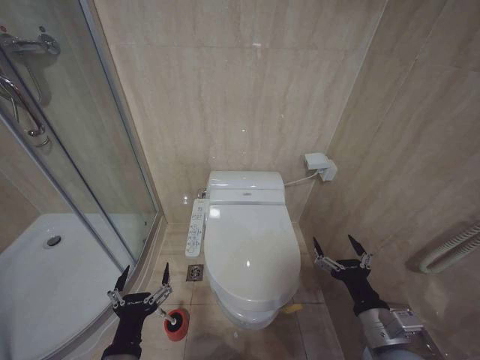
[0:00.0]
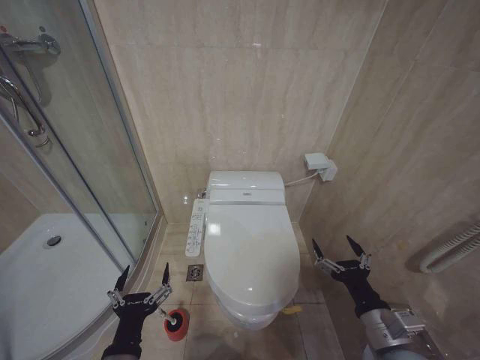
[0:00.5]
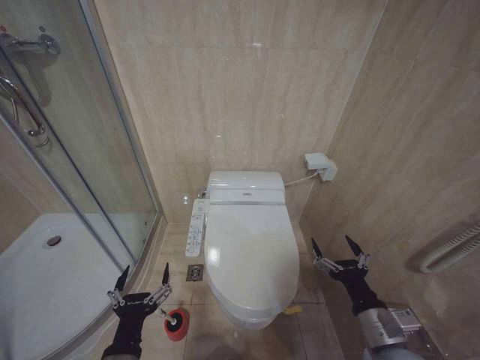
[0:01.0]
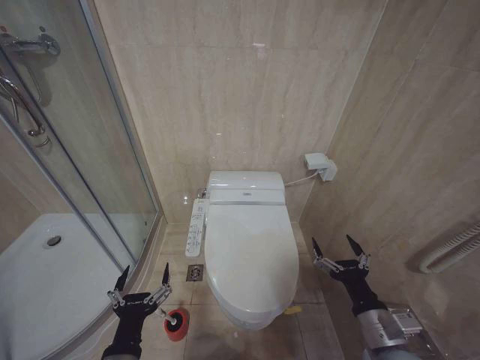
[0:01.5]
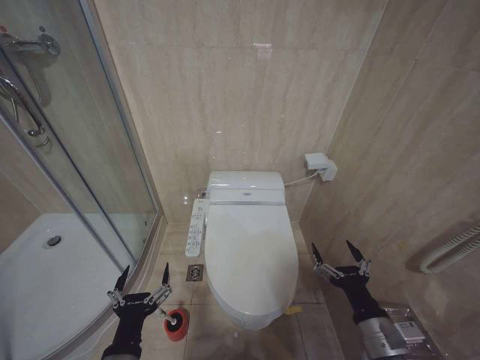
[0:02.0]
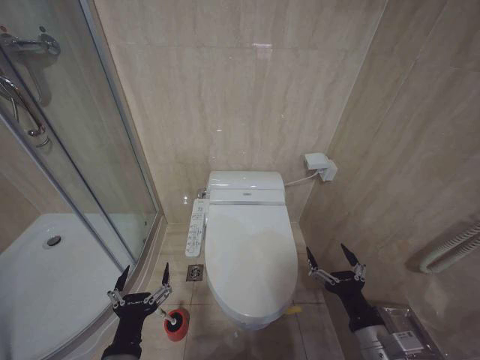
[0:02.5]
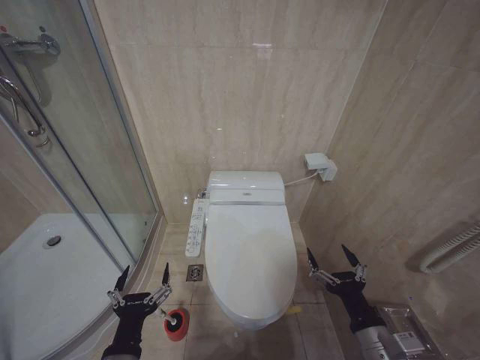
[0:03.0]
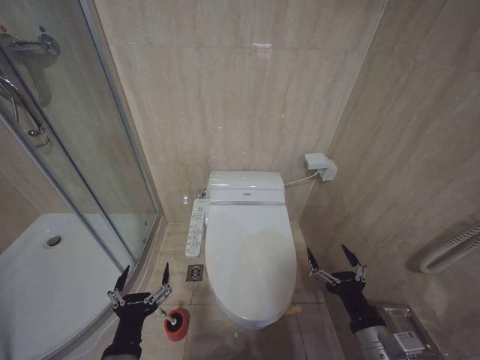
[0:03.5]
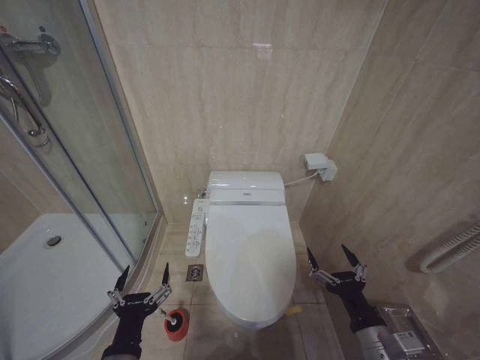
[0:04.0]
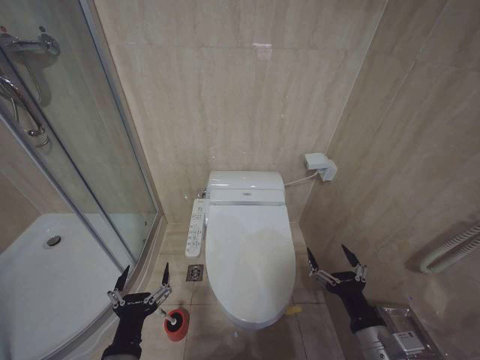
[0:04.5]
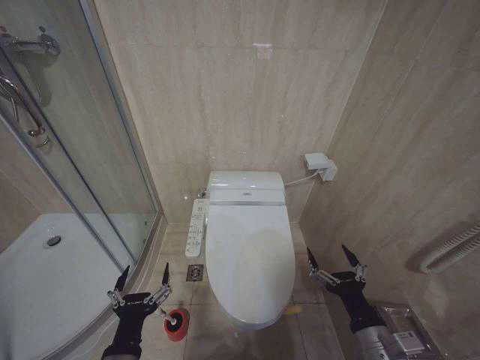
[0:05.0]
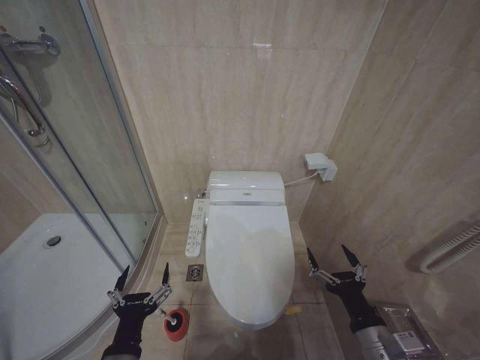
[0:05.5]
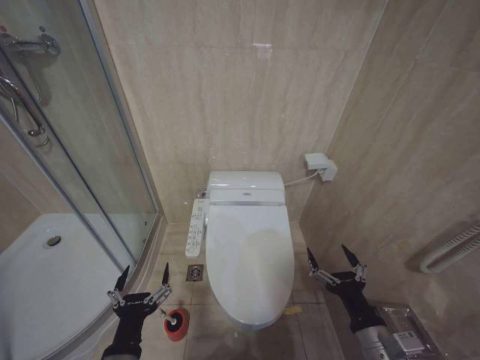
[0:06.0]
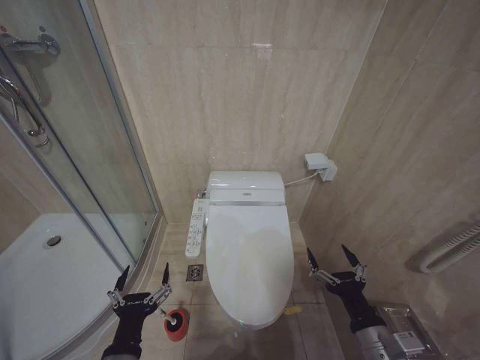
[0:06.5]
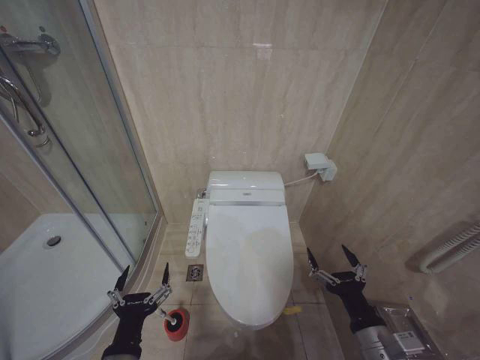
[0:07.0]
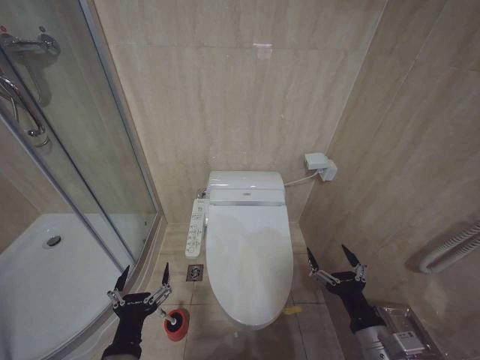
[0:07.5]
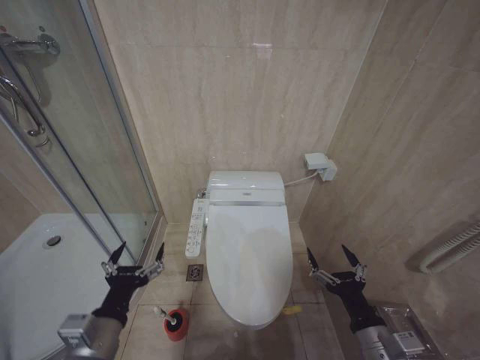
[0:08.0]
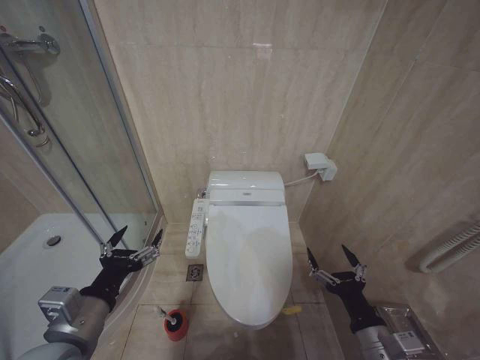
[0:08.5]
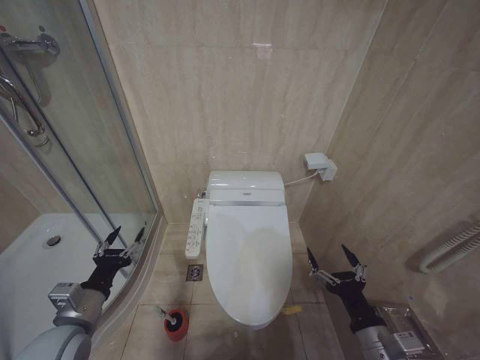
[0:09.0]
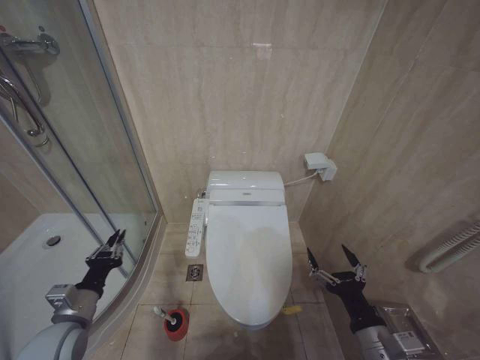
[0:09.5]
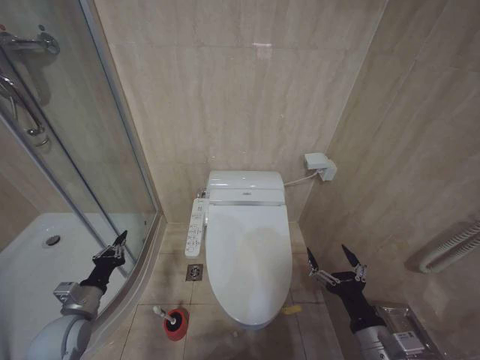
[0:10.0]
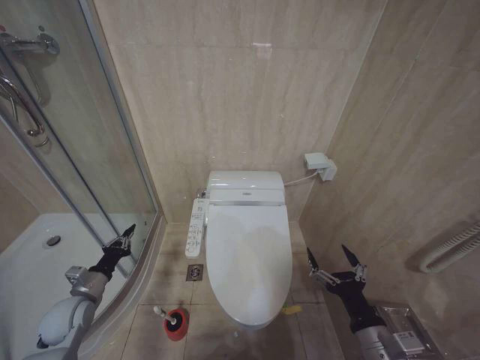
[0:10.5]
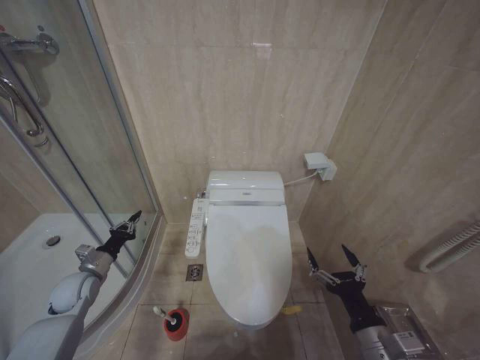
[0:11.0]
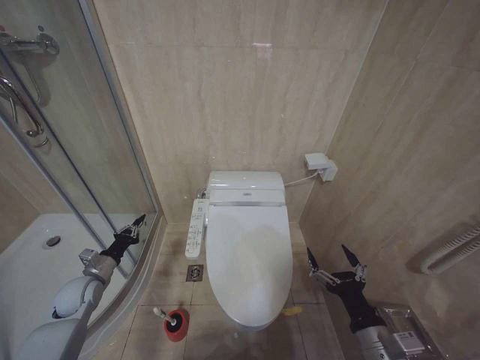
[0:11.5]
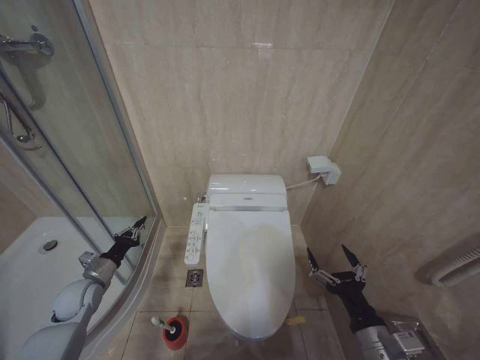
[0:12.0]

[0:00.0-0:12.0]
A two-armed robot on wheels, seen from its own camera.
Task of the whole recording: Open the toilet lid, clean the toilet bowl with a toilet brush, close the toilet lid, and flush.
0:00.0 to 0:04.0: There are only small adjustments of the grippers.
0:04.0 to 0:06.0: The two grippers keep their place.
0:06.0 to 0:08.0: The left gripper shifts some 5 cm upward.
0:08.0 to 0:10.0: The left gripper is displaced to the left, forward and downward by about 20 cm, and closes its fingers.
0:10.0 to 0:12.0: The left gripper goes about 10 cm forward.

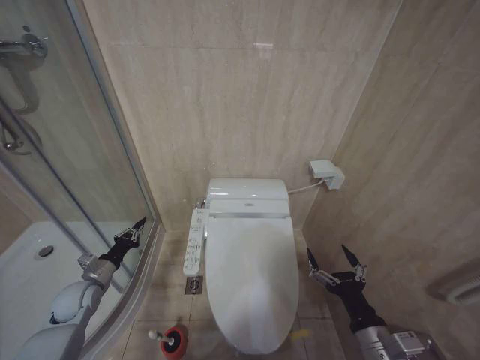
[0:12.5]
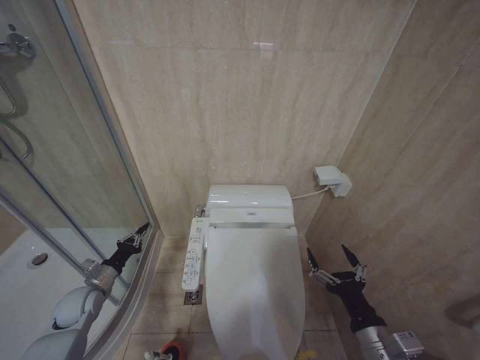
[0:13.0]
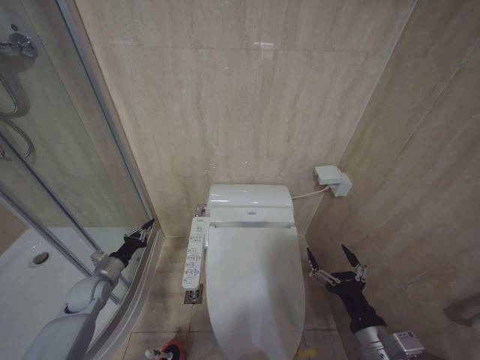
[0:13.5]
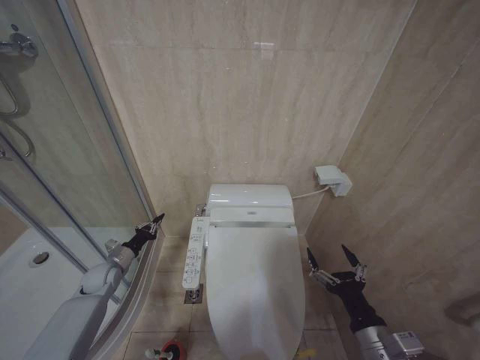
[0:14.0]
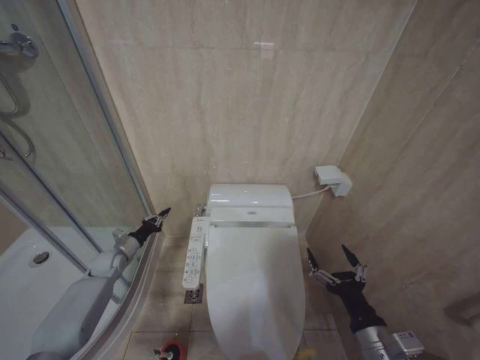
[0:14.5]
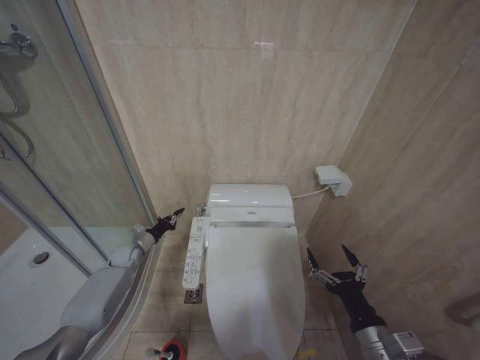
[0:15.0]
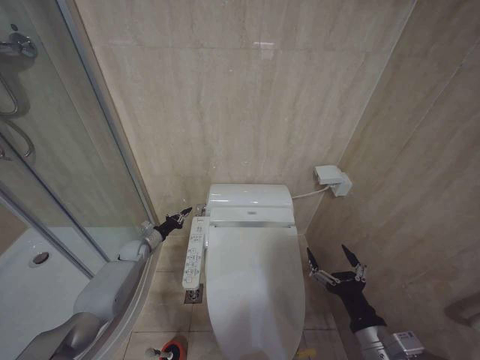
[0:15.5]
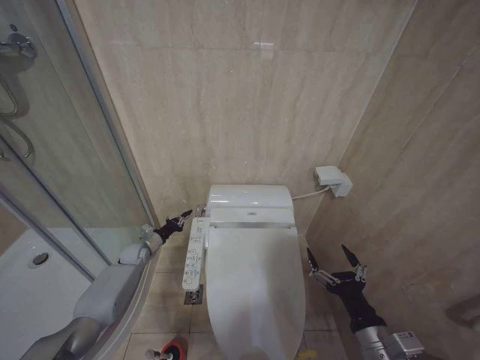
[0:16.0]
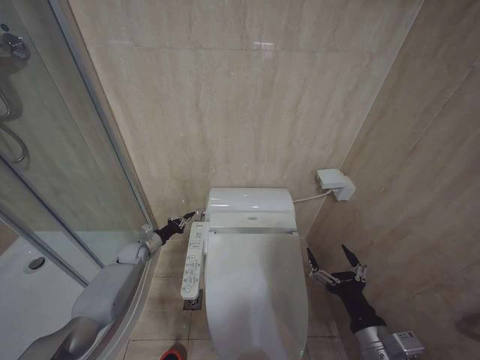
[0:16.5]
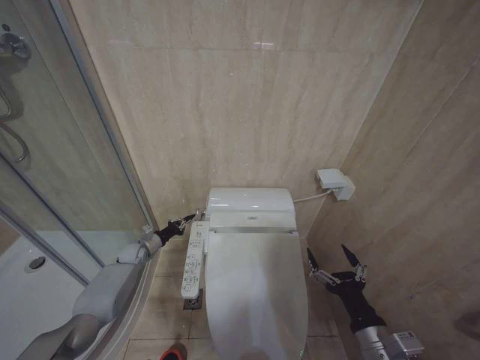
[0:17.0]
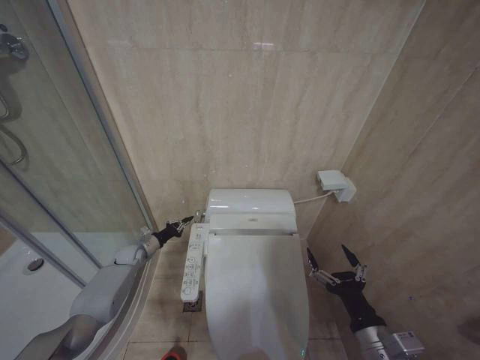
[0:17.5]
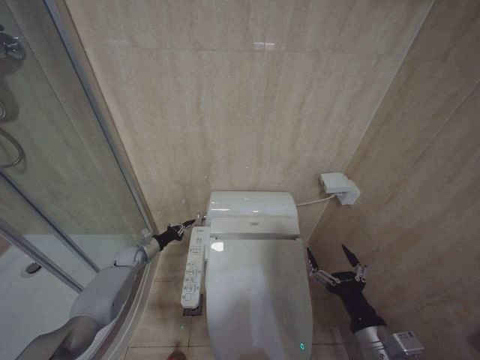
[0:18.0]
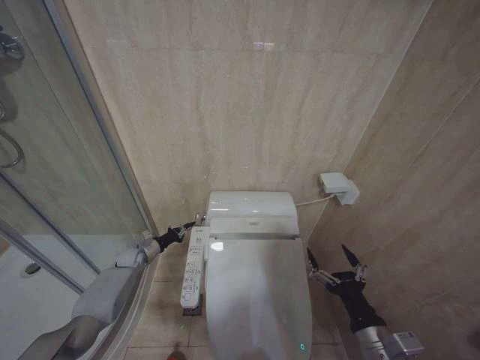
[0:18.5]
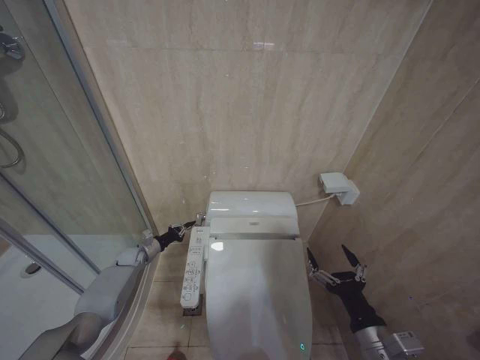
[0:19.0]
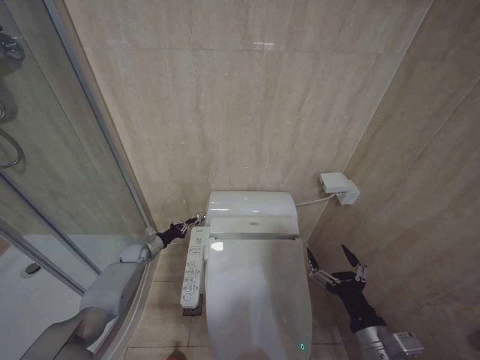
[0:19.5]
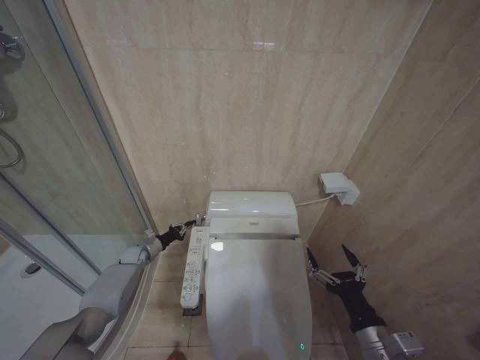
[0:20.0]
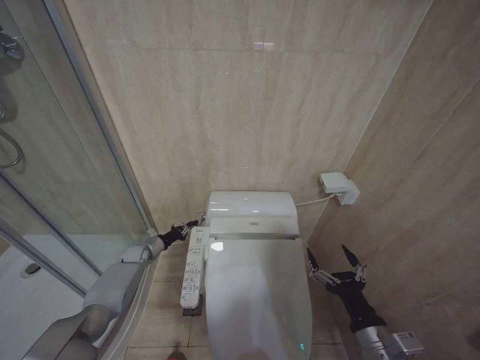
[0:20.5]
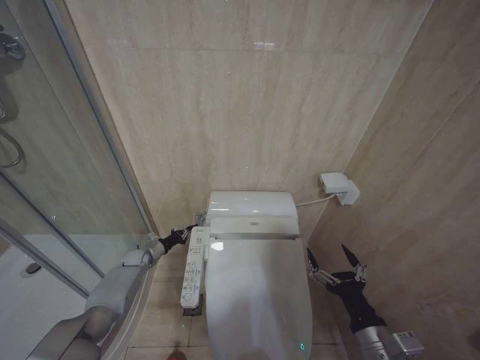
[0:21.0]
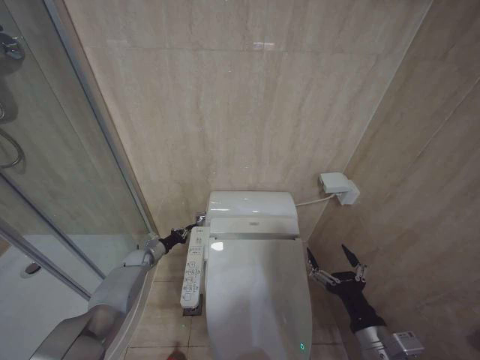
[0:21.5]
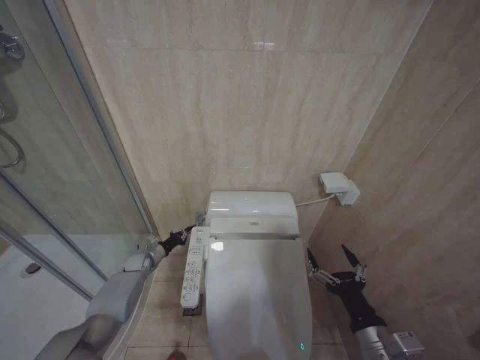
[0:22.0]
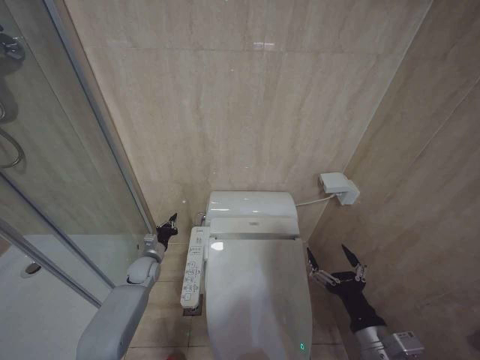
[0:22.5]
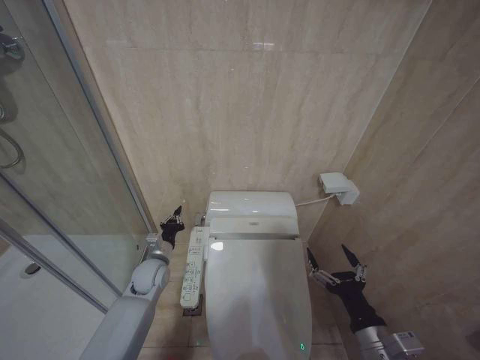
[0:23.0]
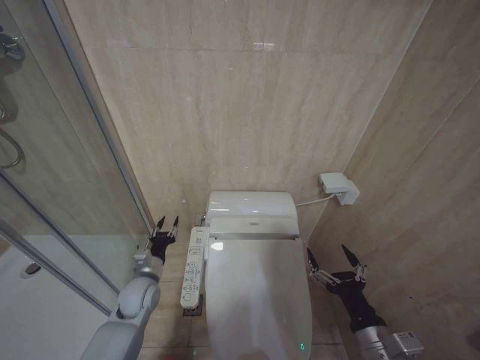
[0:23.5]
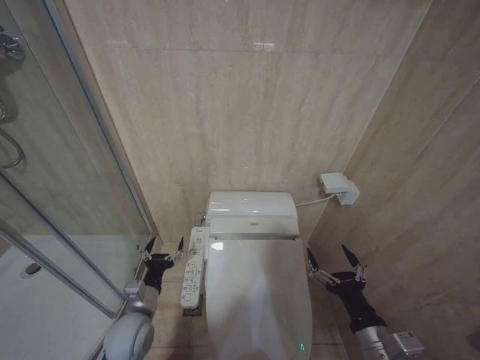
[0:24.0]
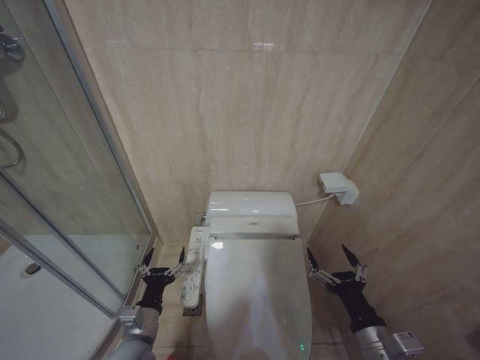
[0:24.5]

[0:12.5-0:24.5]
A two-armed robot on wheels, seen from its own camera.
Task of the whole recording: Open the toilet lid, clean the toilet bowl with a toilet brush, close the toilet lid, and flush.
0:12.5 to 0:14.5: The left gripper moves forward, roughly 10 cm.
0:14.5 to 0:16.5: The left gripper goes approximately 10 cm to the right and forward.
0:16.5 to 0:20.5: The grippers move only a little.
0:20.5 to 0:22.5: The left gripper moves backward and to the right, roughly 10 cm.
0:22.5 to 0:24.5: The left gripper is displaced backward by roughly 25 cm, and opens its fingers.

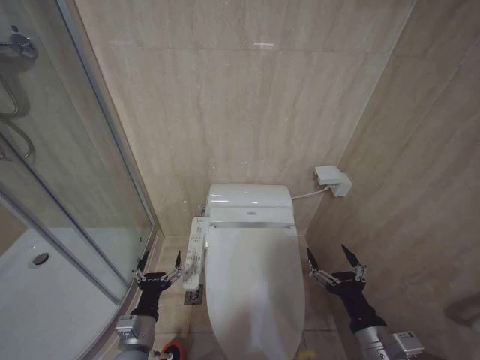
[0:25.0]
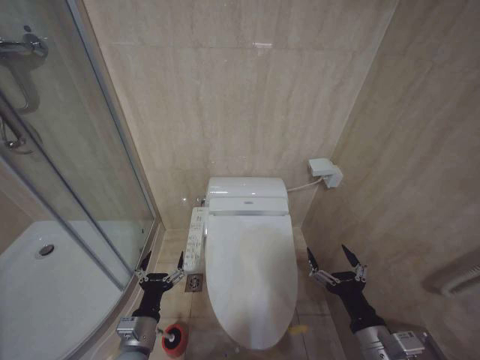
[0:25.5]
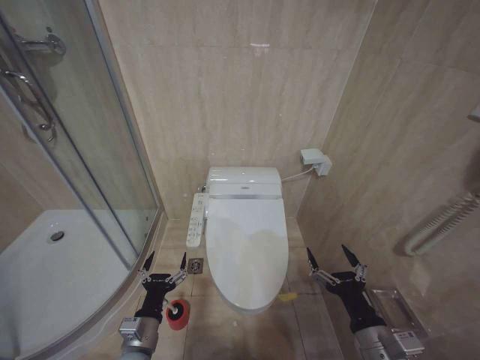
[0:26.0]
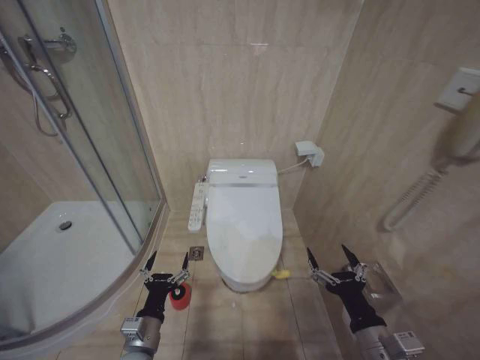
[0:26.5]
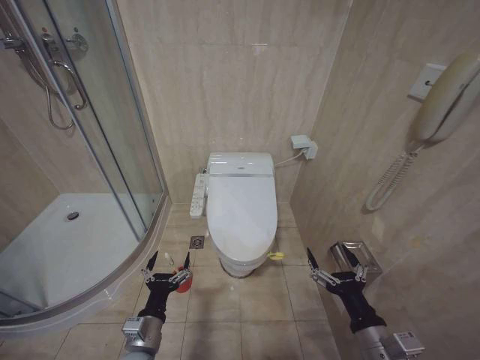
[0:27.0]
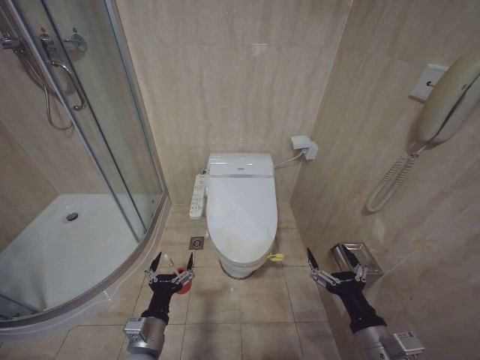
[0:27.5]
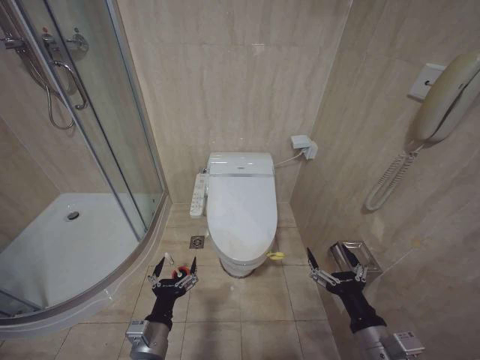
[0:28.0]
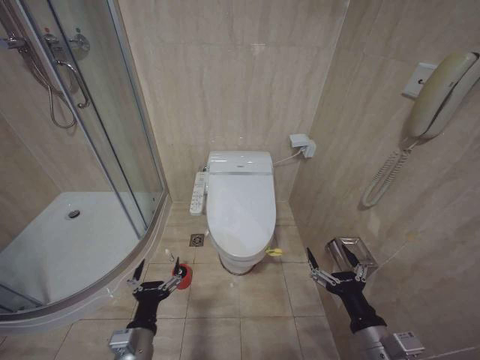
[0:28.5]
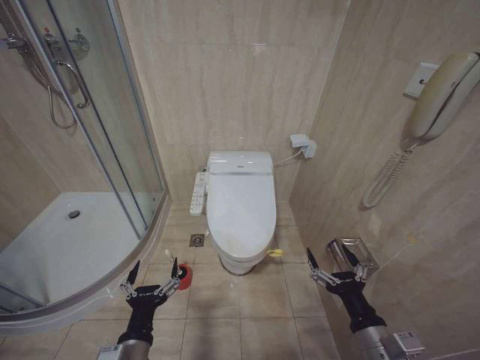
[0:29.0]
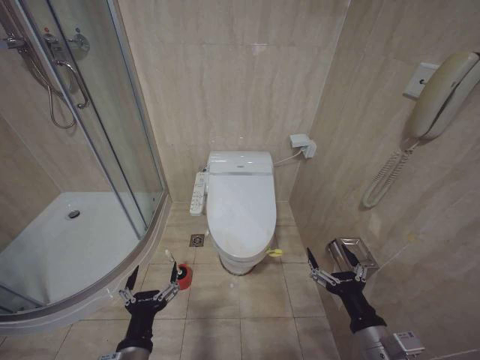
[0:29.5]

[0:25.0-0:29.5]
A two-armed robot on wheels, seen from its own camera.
Task of the whole recording: Open the toilet lid, clean the toilet bowl with a toilet brush, close the toilet lid, and flush.
0:27.0 to 0:29.5: The left gripper is displaced backward and upward by some 10 cm.
